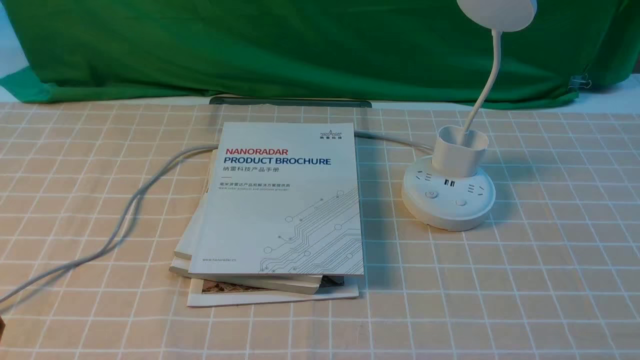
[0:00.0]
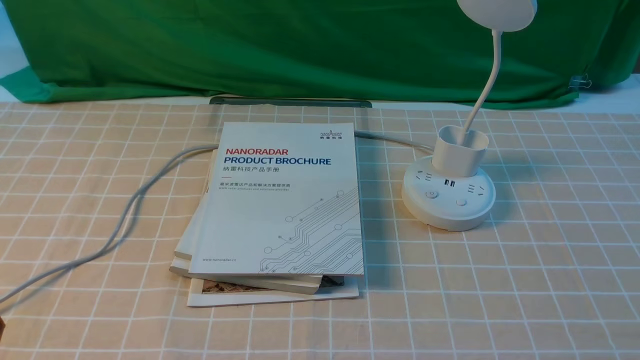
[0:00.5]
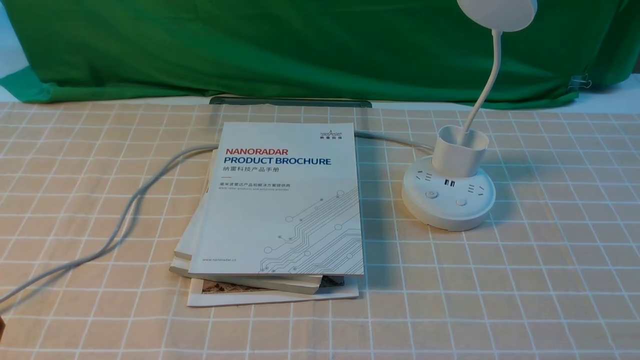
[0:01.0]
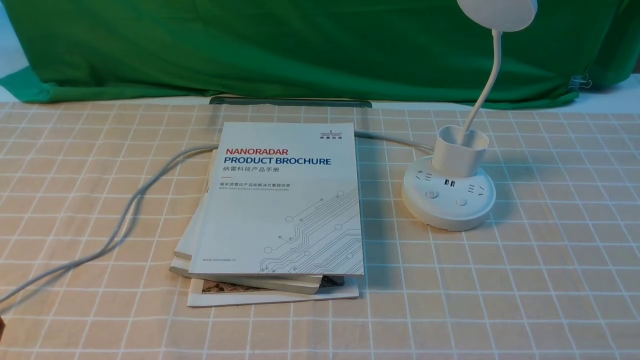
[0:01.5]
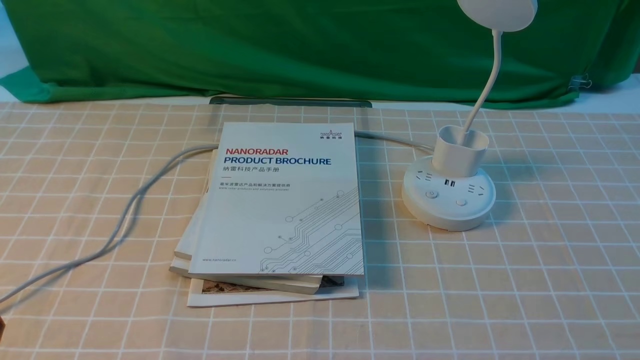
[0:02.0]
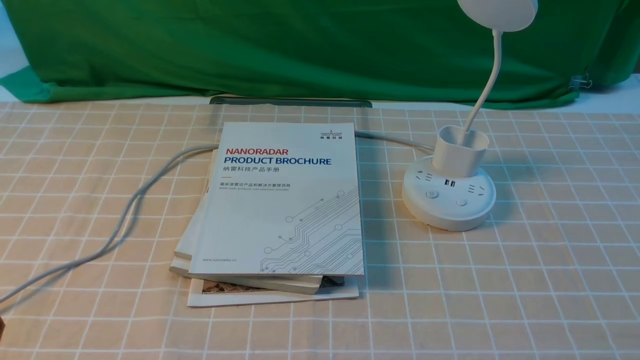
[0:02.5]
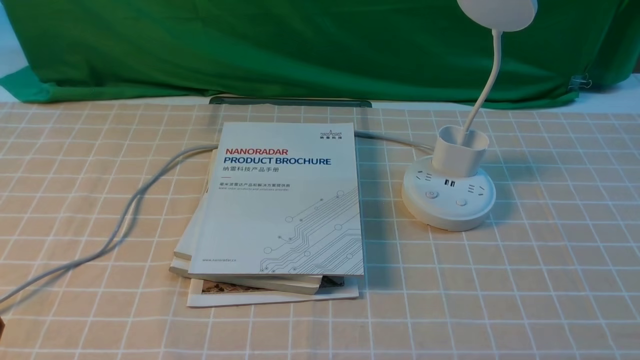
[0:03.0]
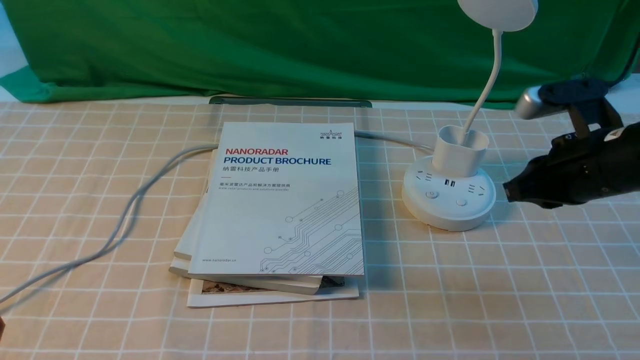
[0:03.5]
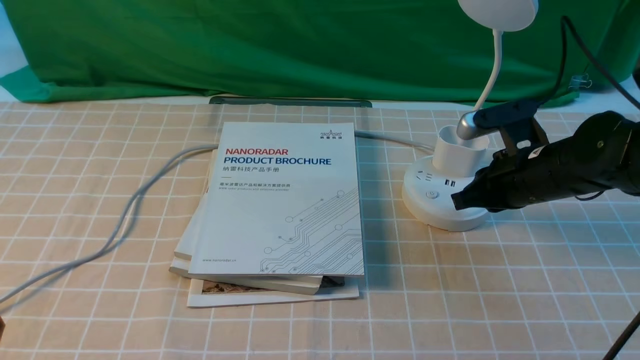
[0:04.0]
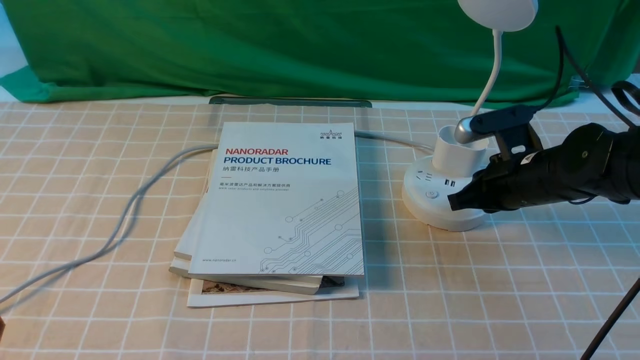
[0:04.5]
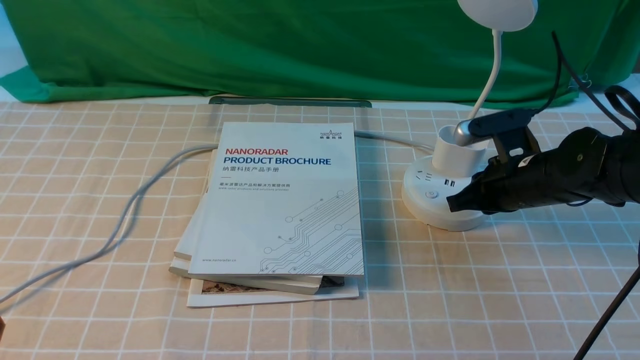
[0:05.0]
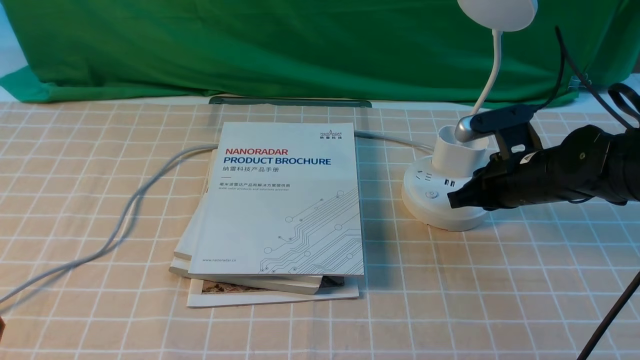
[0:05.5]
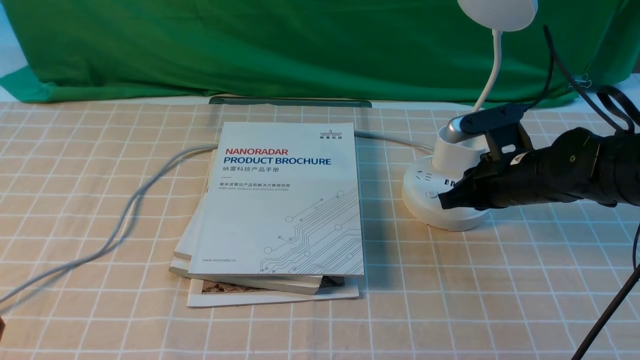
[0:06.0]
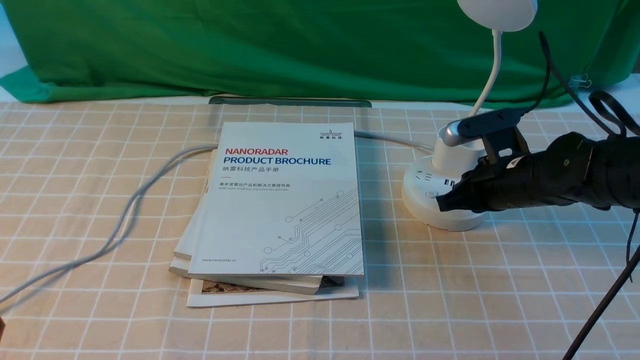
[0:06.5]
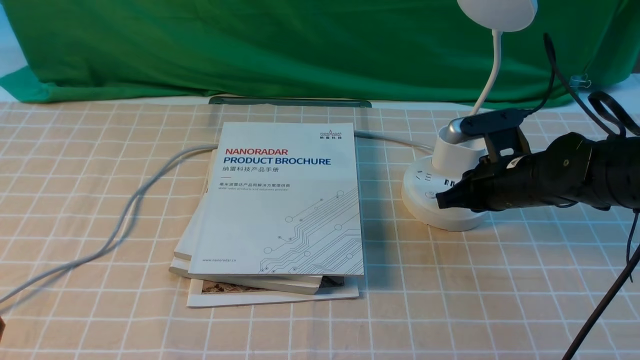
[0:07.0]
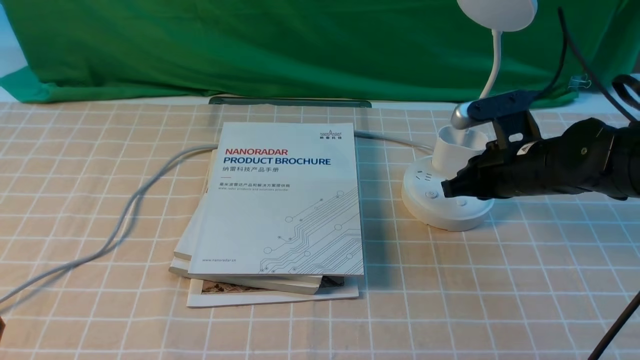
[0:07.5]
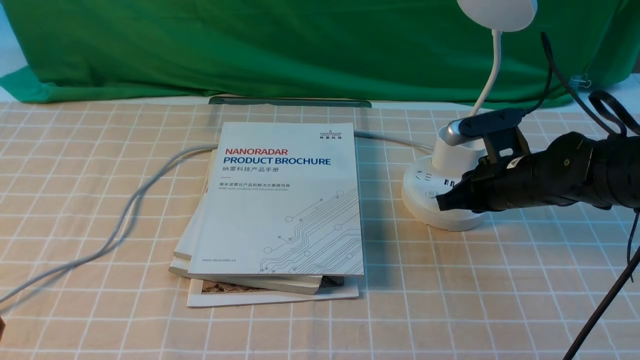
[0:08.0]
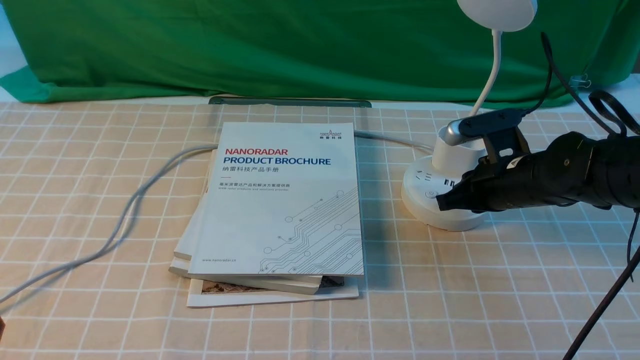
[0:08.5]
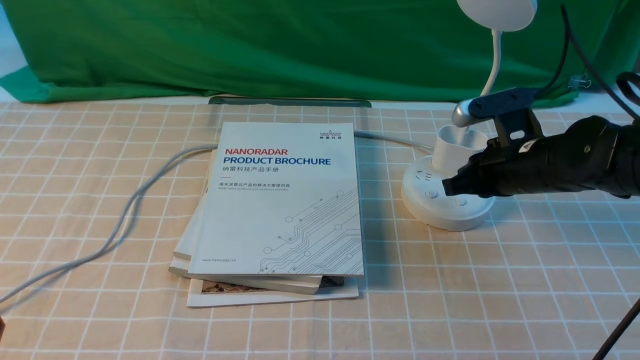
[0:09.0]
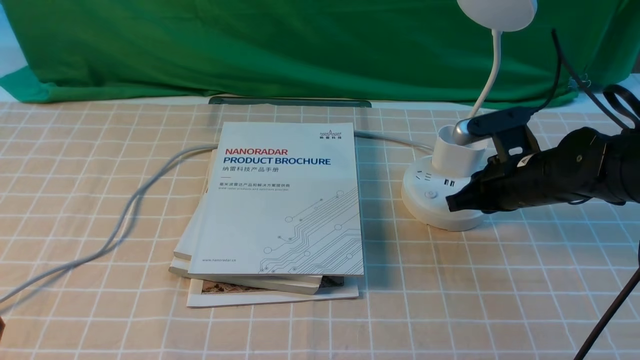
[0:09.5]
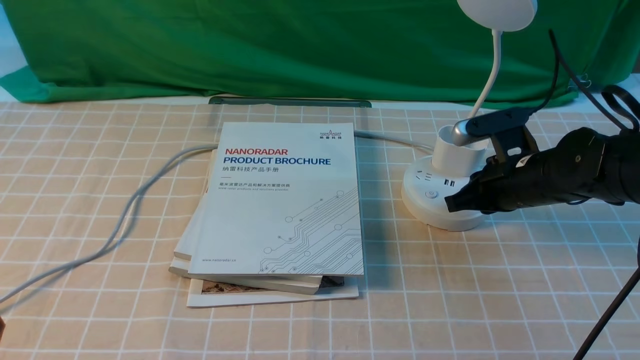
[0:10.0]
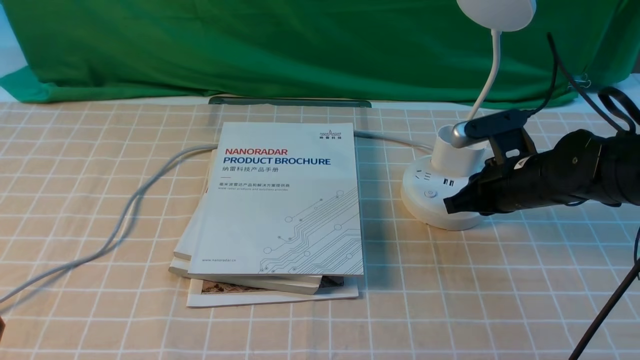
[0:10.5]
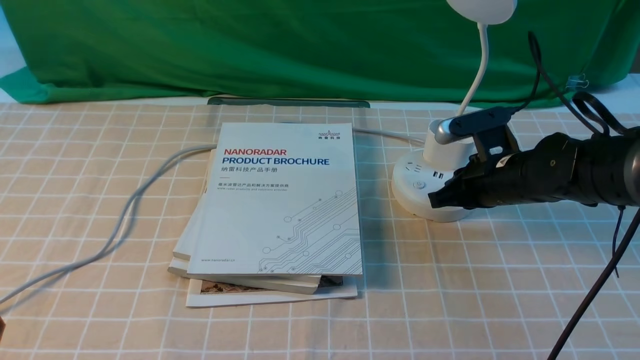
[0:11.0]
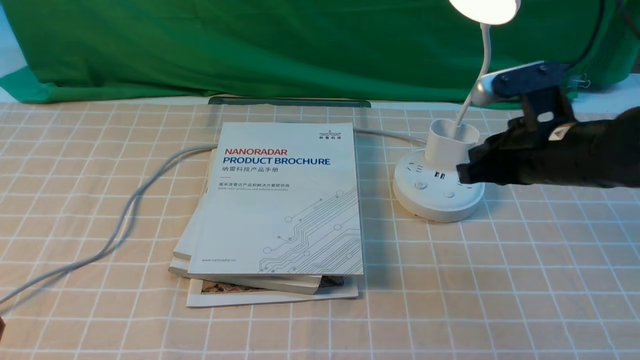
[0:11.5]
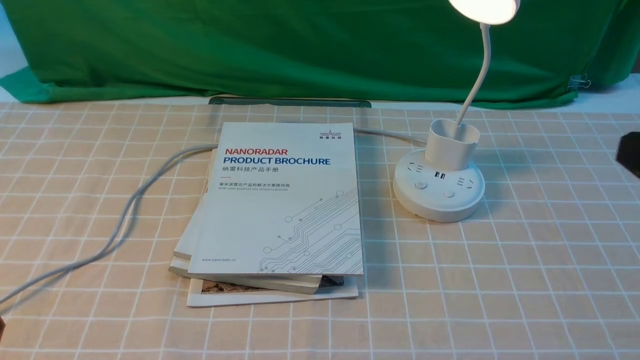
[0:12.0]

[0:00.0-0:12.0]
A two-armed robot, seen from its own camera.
Step, 0:00.0 to 0:11.5: use the right arm to press the button switch on the lamp holder.
0:02.0 to 0:04.0: The right gripper shifts about 30 cm forward, and closes.
0:04.0 to 0:10.0: The grippers stay close to where they were, moving slightly.
0:10.0 to 0:12.0: The right gripper moves backward and upward, roughly 25 cm.
